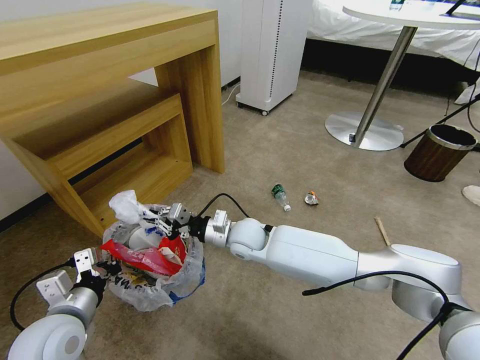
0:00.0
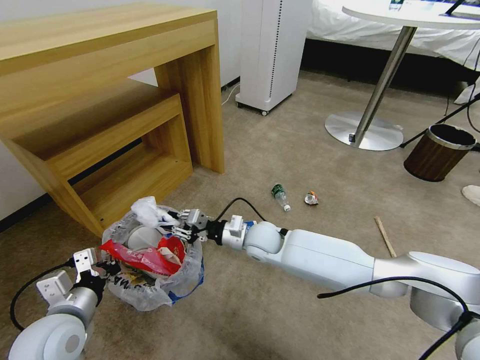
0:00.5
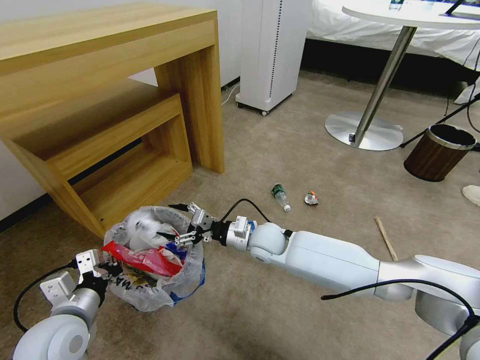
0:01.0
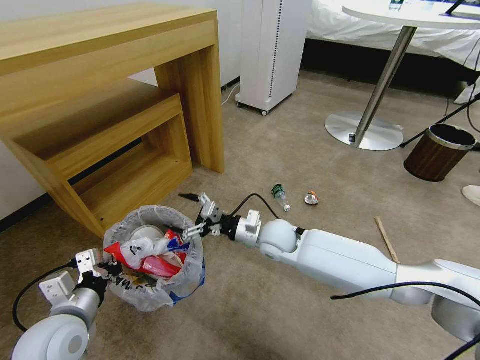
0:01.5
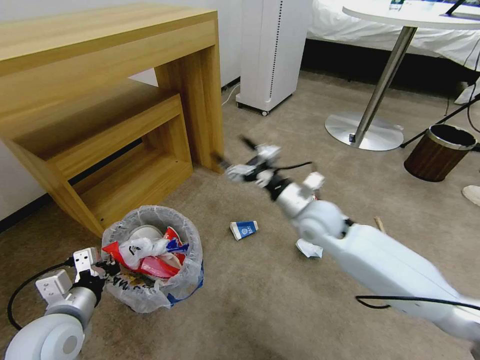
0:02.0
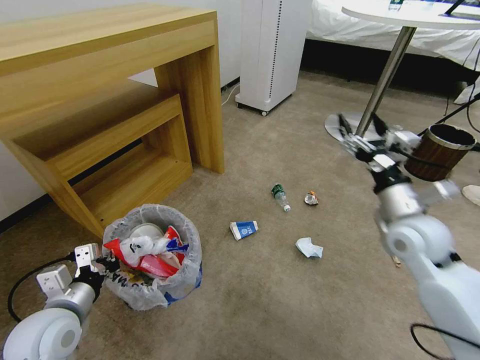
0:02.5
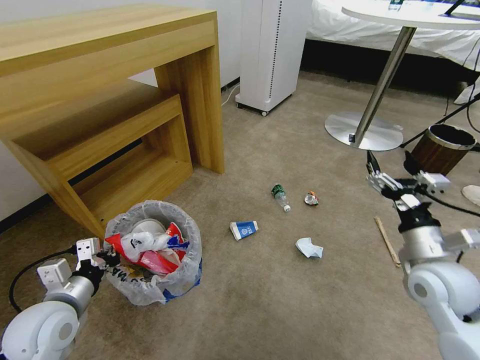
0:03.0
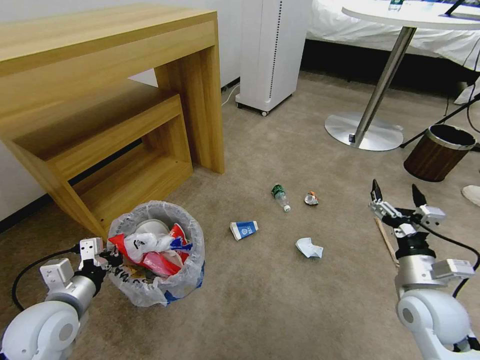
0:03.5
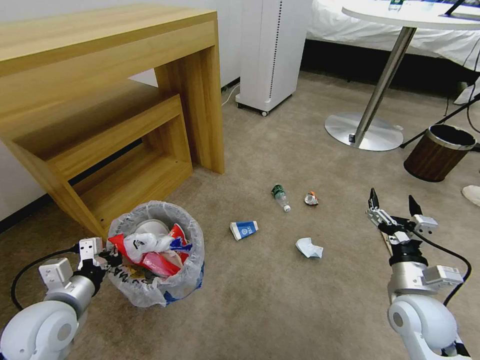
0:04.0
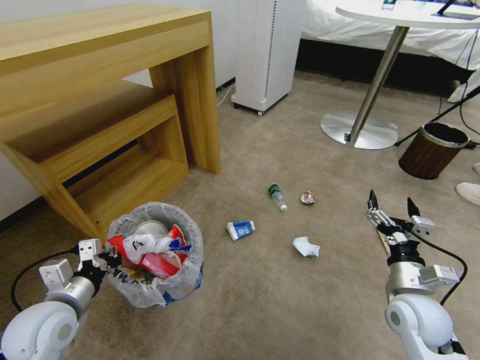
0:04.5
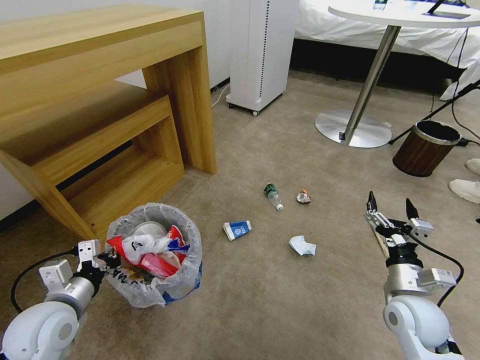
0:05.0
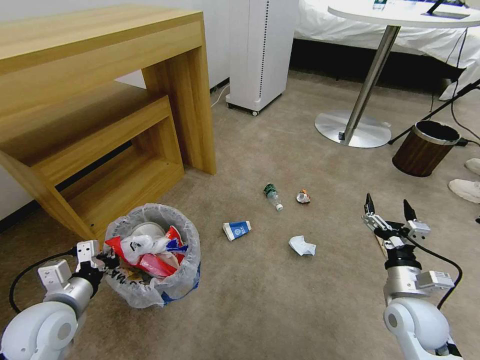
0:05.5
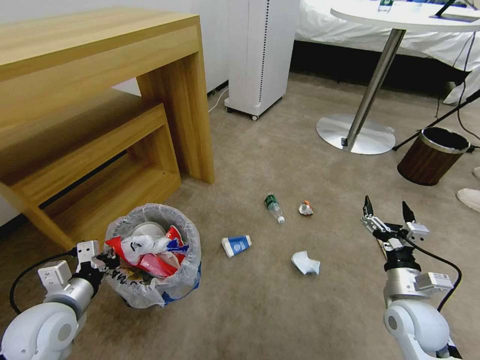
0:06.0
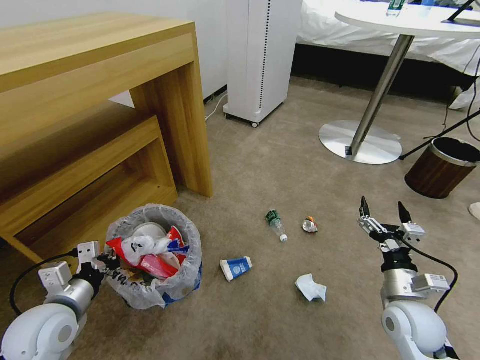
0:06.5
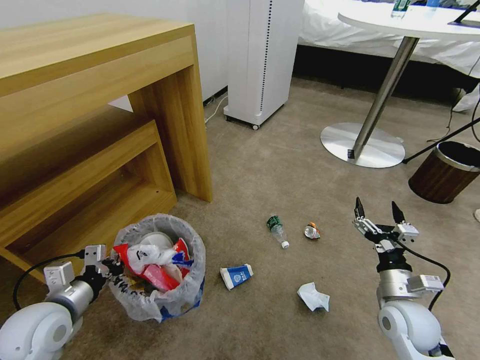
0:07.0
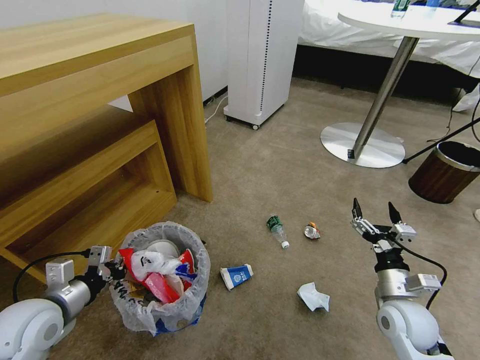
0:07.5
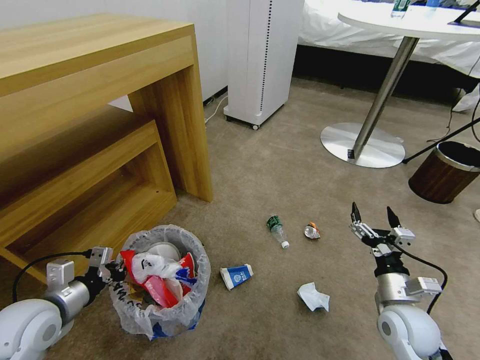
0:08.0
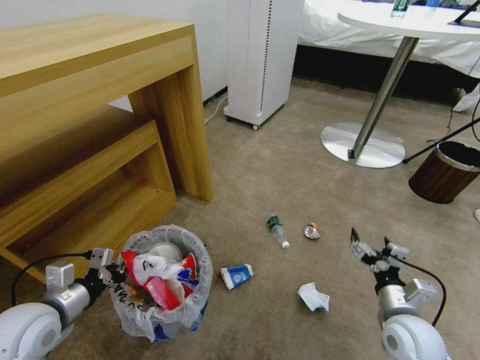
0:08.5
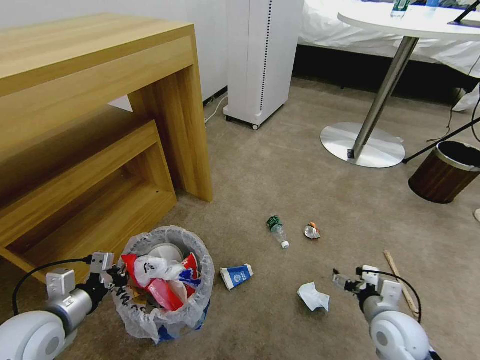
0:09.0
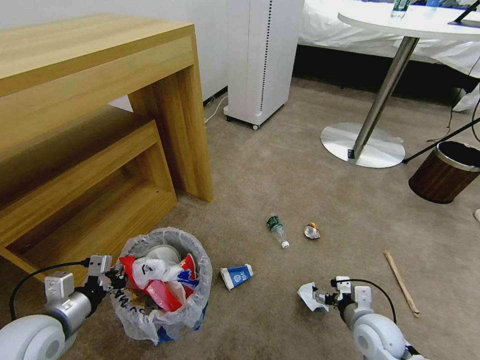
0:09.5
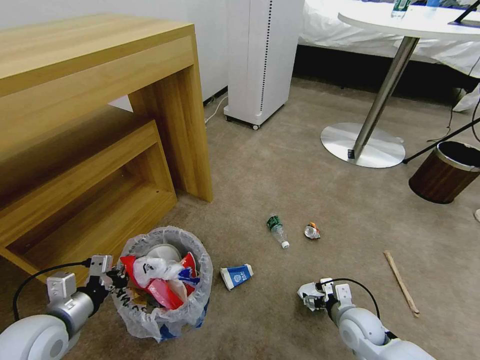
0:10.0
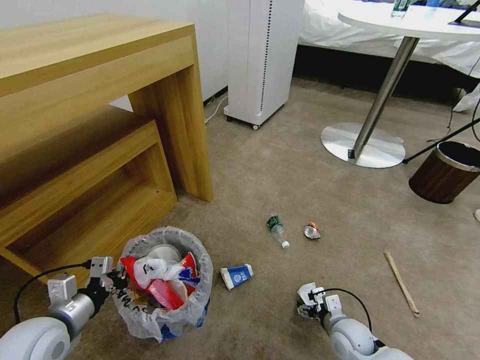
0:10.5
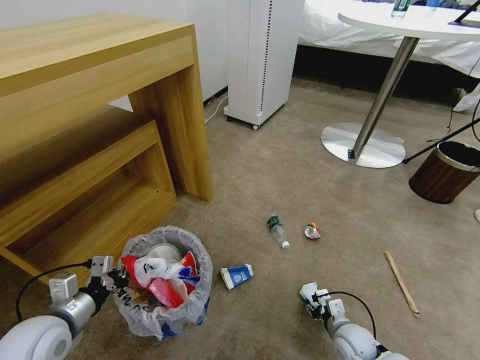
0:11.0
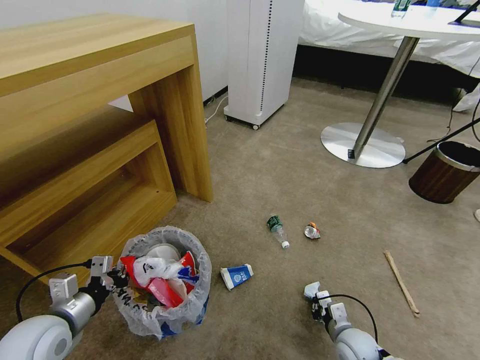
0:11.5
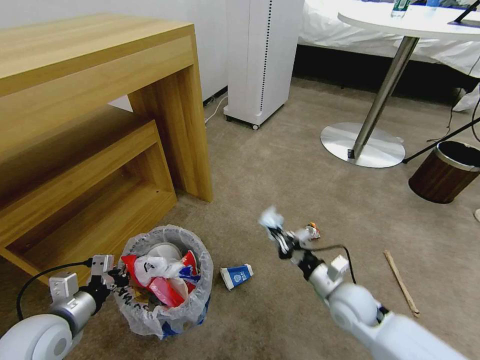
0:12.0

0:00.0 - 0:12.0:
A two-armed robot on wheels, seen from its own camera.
Task of the whole recording: Pick up the trash bin and place the garbage on the floor into it.
0:00.0 - 0:02.0: The right gripper moves to the right and upward, roughly 20 cm, and opens.
0:02.0 - 0:04.0: The right gripper travels backward, to the right and downward by about 25 cm.
0:08.0 - 0:10.0: The right gripper shifts approximately 10 cm downward.
0:10.0 - 0:12.0: The right gripper is displaced upward by approximately 10 cm, and closes up.

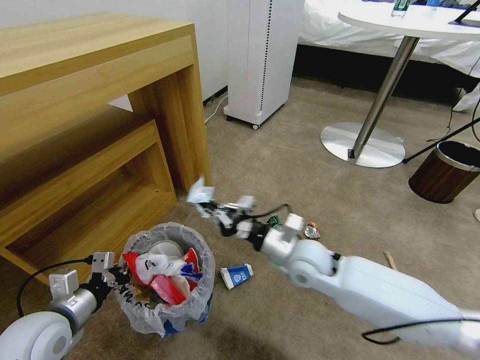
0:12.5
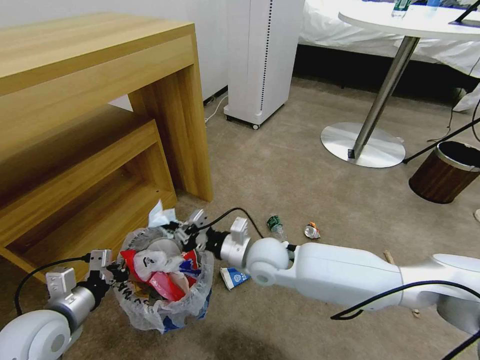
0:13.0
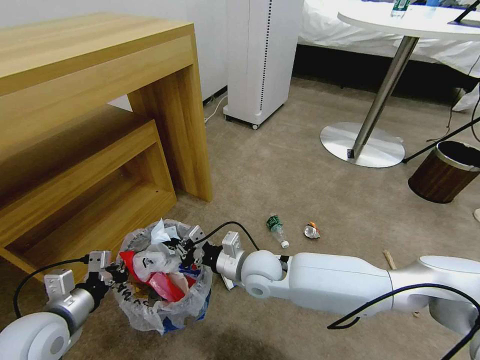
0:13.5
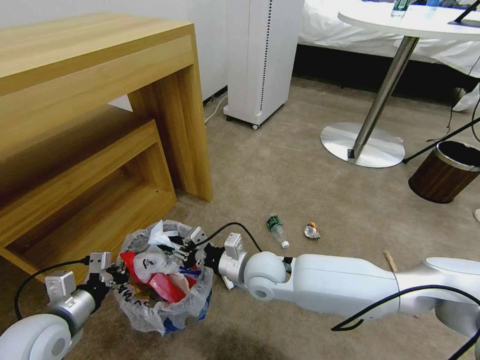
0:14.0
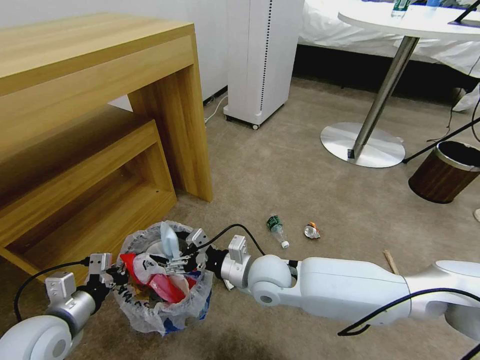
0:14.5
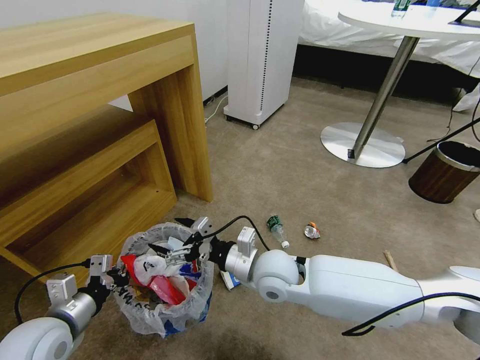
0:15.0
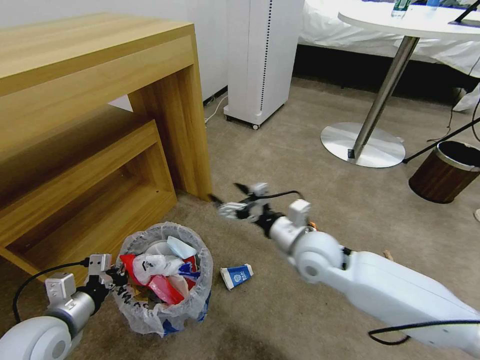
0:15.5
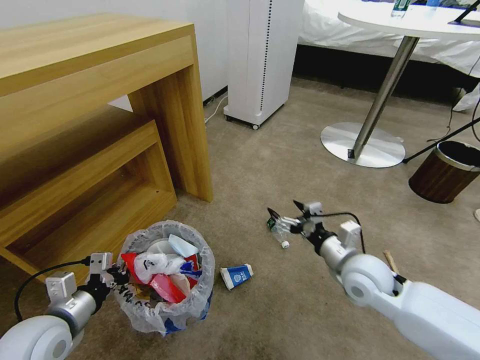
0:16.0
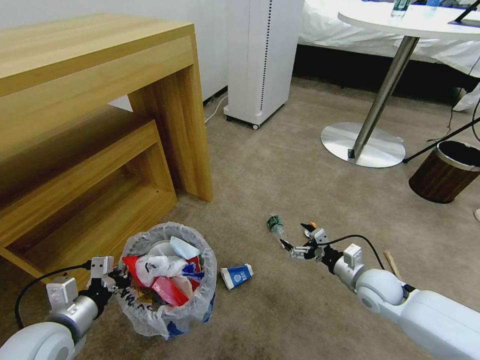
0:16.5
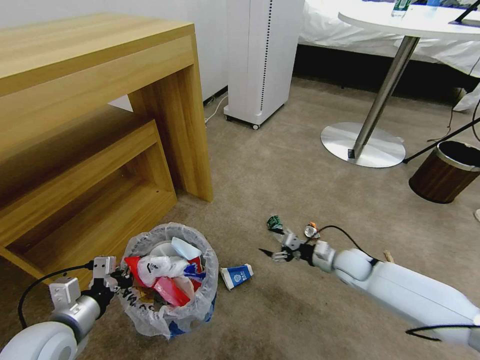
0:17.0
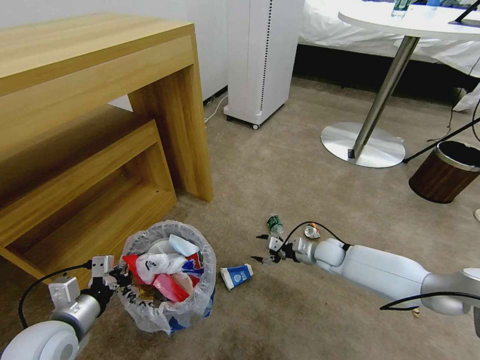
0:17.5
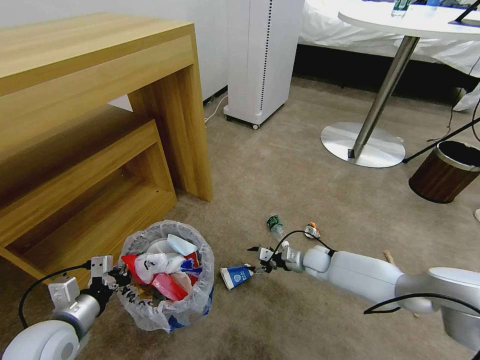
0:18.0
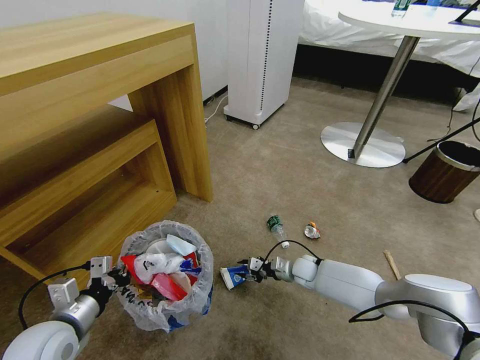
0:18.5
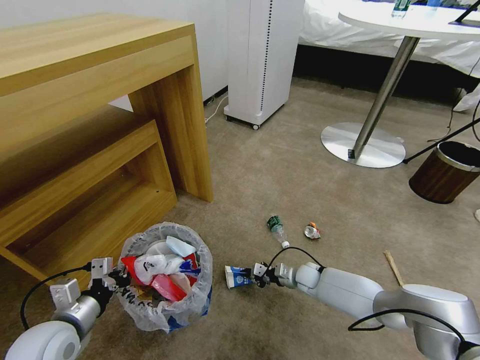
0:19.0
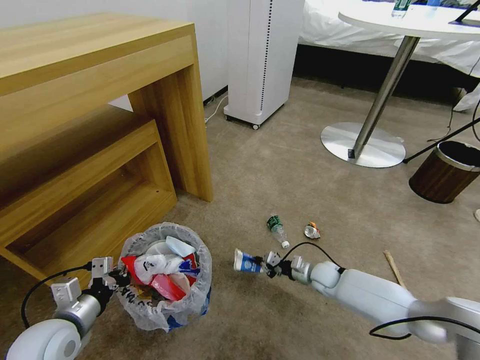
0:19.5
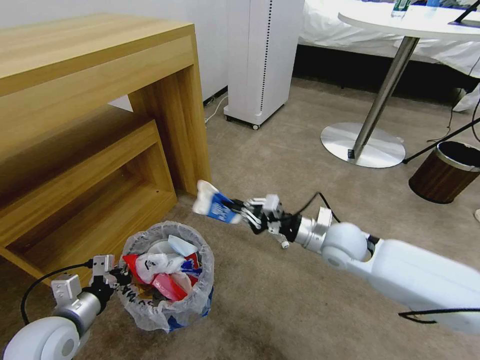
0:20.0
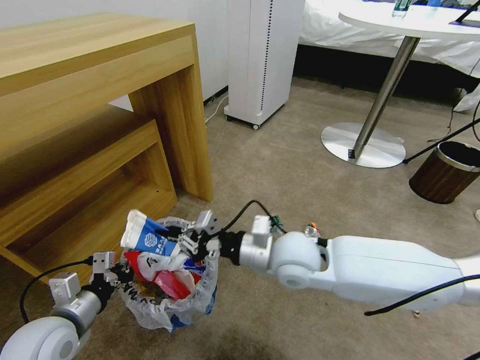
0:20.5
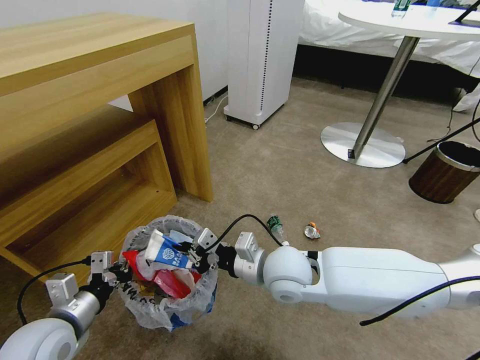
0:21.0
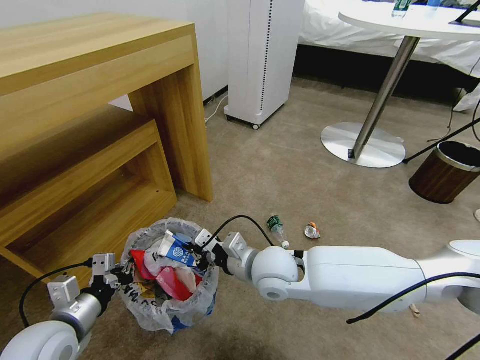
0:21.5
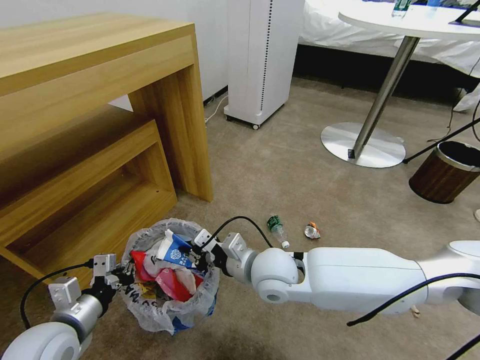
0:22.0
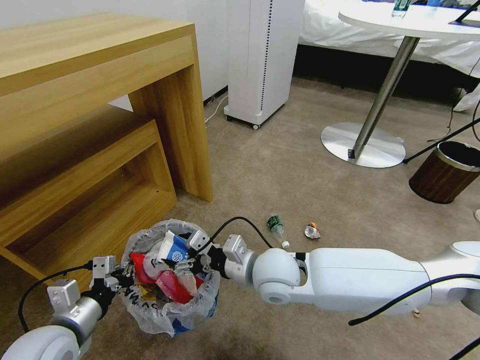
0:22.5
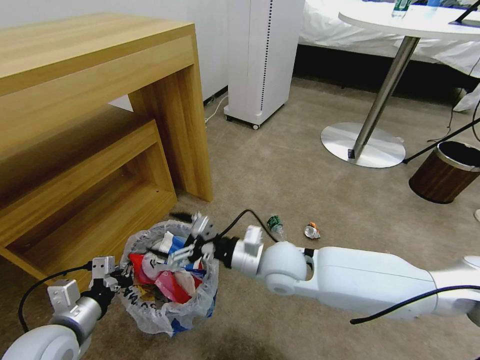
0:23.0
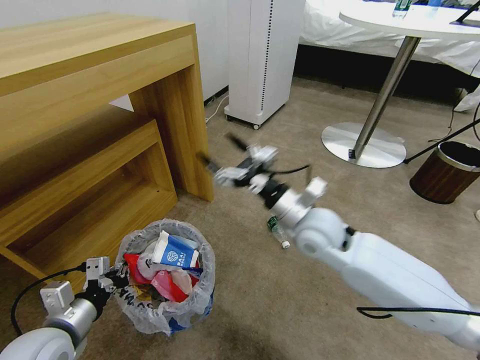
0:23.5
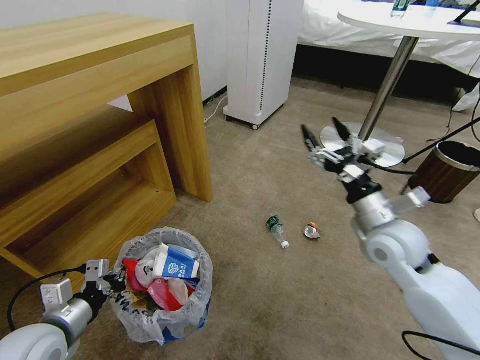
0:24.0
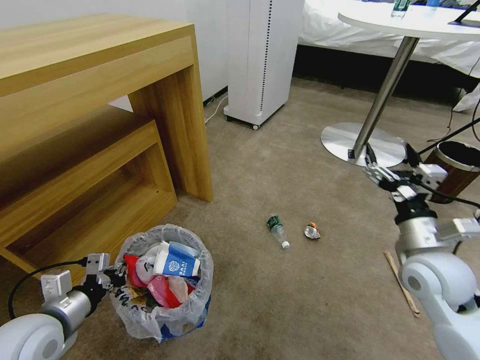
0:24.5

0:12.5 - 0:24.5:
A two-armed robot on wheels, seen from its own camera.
Task of the whole recording: Pick up the trash bin and place the garbage on the floor into it.
0:12.5 - 0:14.5: The right gripper goes roughly 10 cm to the left, and opens.
0:14.5 - 0:16.5: The right gripper goes roughly 30 cm to the right.
0:16.5 - 0:18.5: The right gripper moves downward, to the left and forward, about 20 cm, and closes.
0:18.5 - 0:20.5: The right gripper shifts some 30 cm upward, and closes up.
0:20.5 - 0:22.5: The right gripper shifts by some 5 cm, and opens its fingers.
0:22.5 - 0:24.5: The right gripper moves to the right, roughly 30 cm.

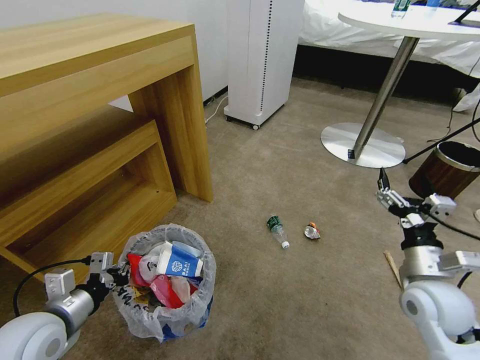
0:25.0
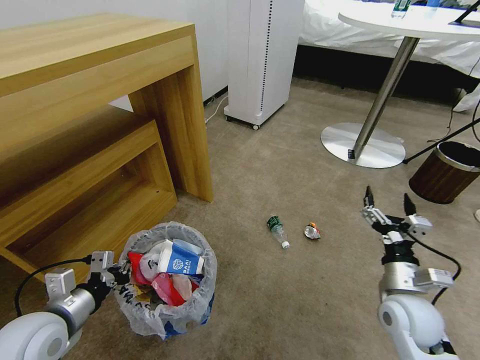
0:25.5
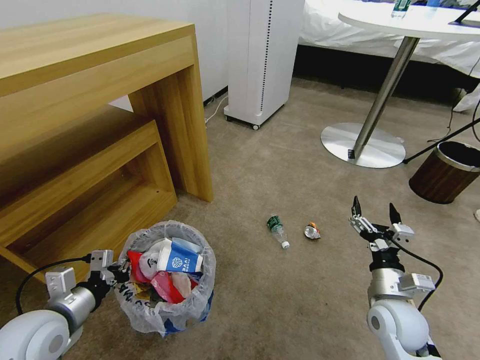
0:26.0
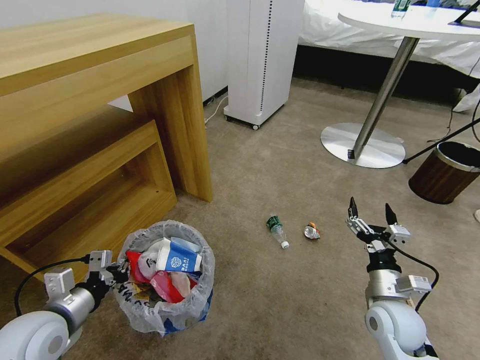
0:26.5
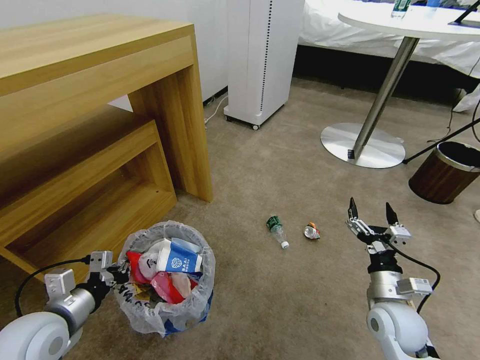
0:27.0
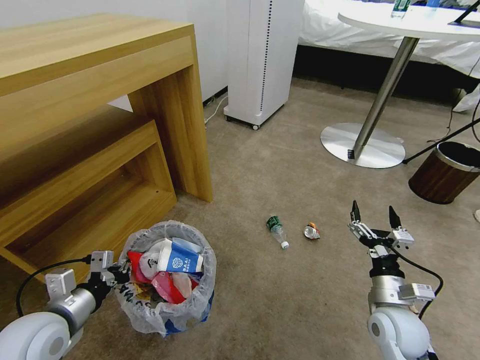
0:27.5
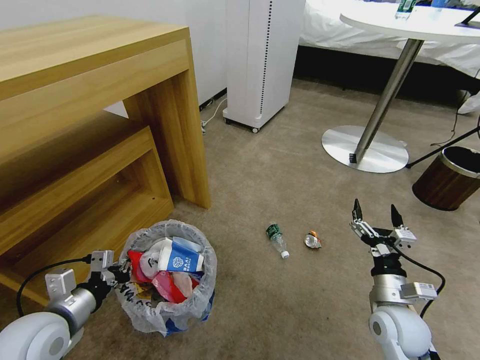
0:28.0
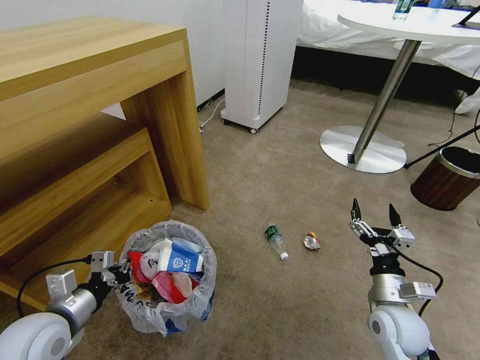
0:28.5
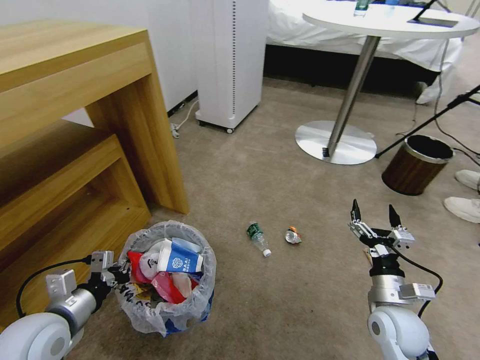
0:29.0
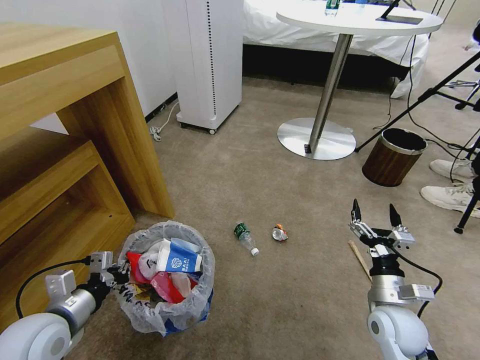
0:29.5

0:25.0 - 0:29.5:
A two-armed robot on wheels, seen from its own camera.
Task of the whole recording: Pick up the trash bin and place the garbage on the floor into it.
0:25.0 - 0:27.0: The right gripper is displaced downward by approximately 10 cm.
